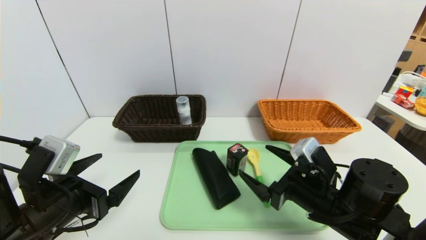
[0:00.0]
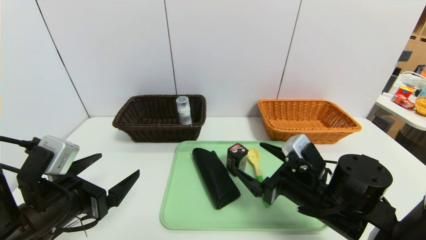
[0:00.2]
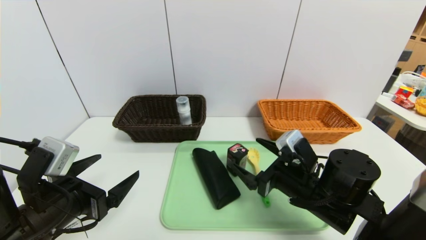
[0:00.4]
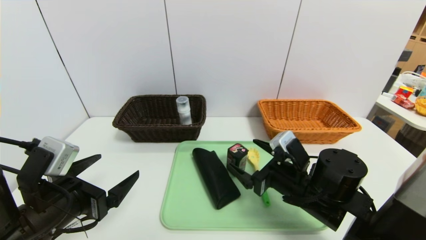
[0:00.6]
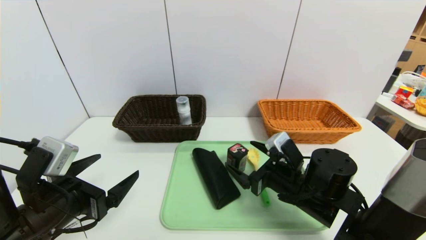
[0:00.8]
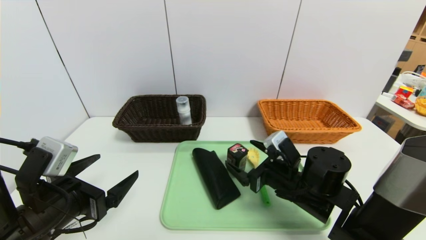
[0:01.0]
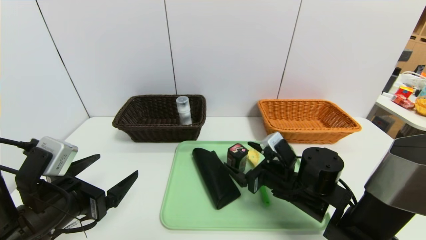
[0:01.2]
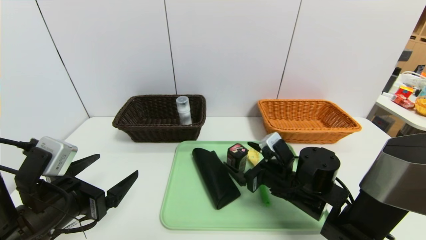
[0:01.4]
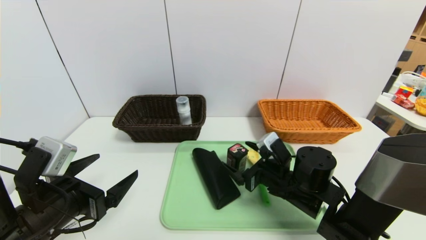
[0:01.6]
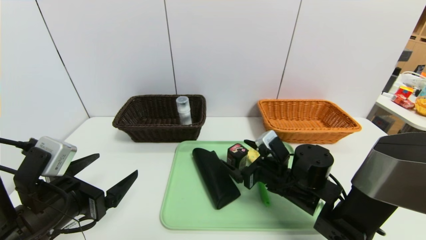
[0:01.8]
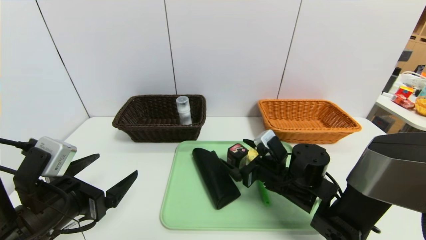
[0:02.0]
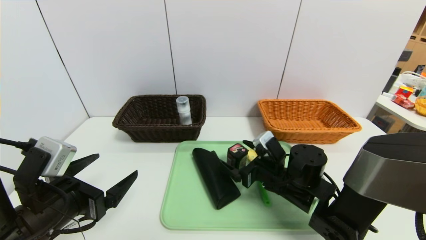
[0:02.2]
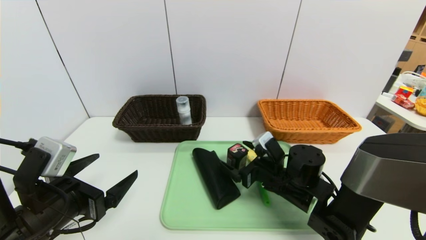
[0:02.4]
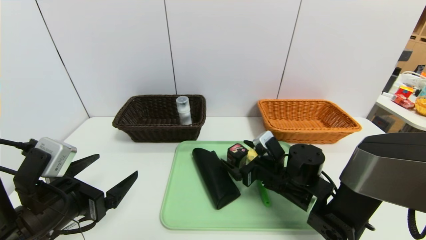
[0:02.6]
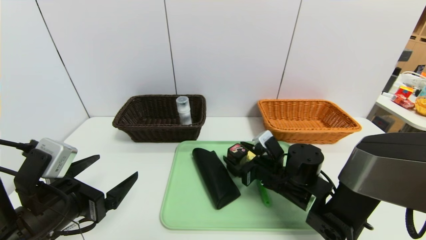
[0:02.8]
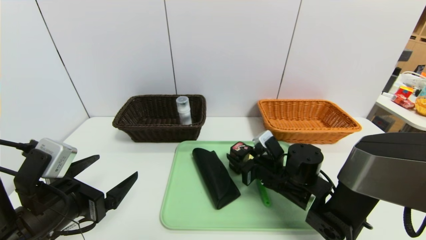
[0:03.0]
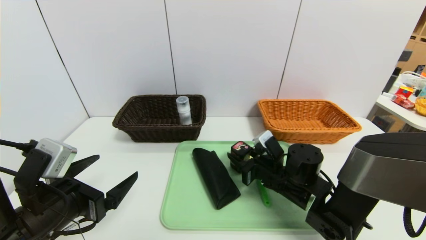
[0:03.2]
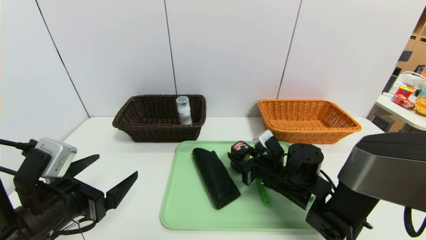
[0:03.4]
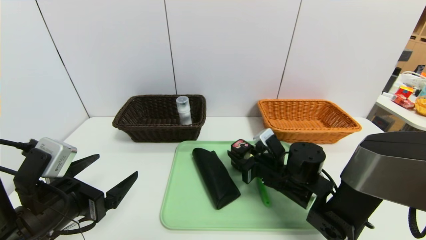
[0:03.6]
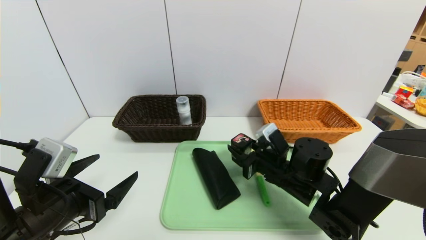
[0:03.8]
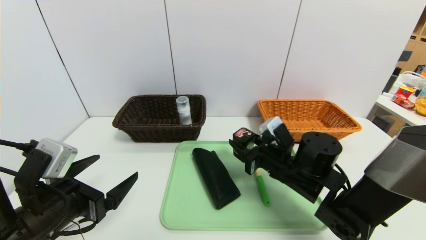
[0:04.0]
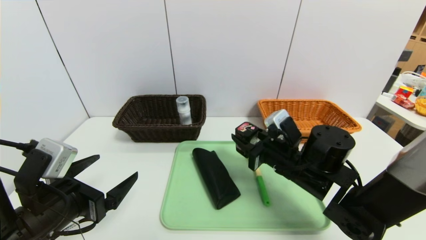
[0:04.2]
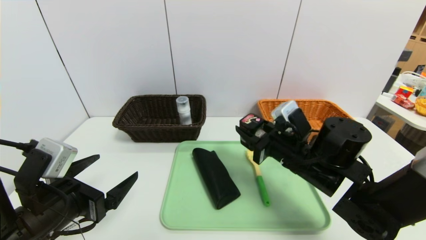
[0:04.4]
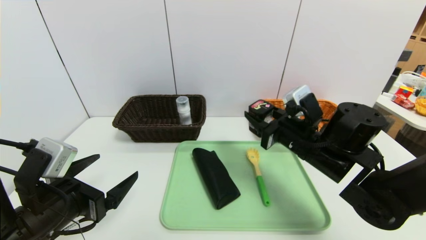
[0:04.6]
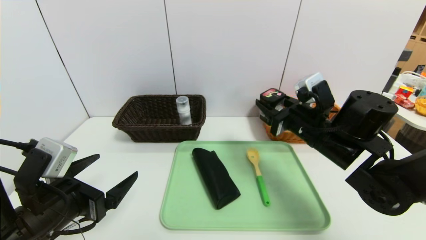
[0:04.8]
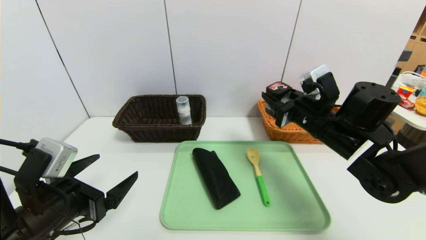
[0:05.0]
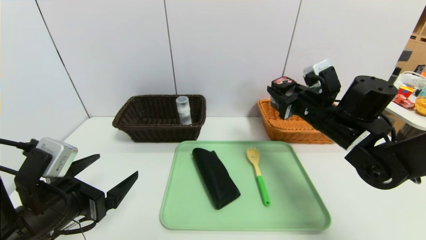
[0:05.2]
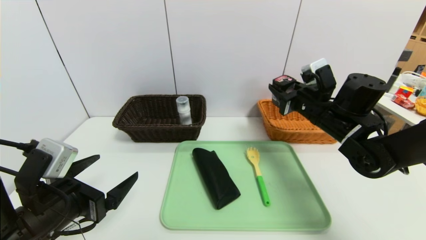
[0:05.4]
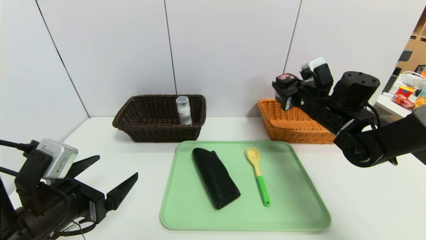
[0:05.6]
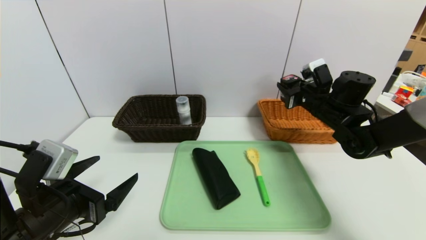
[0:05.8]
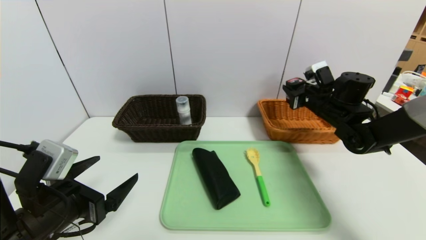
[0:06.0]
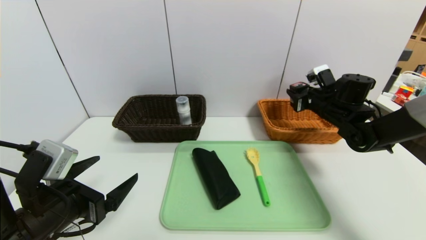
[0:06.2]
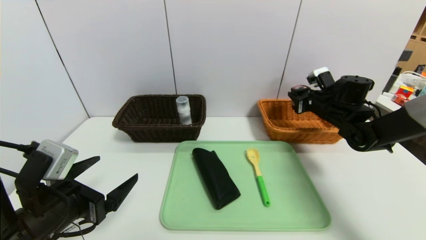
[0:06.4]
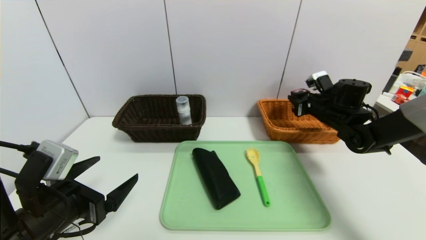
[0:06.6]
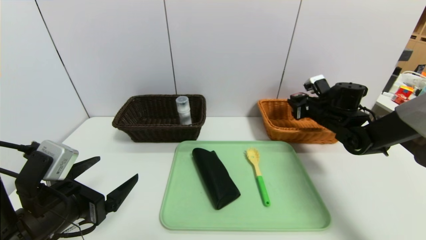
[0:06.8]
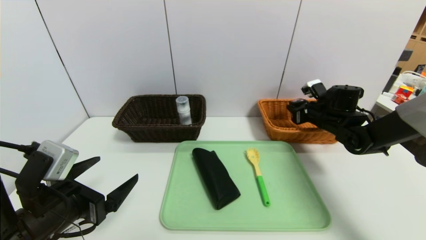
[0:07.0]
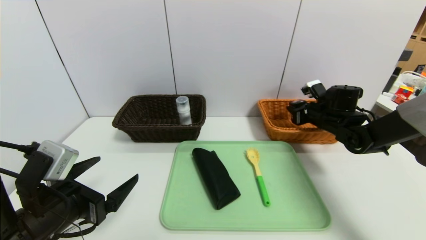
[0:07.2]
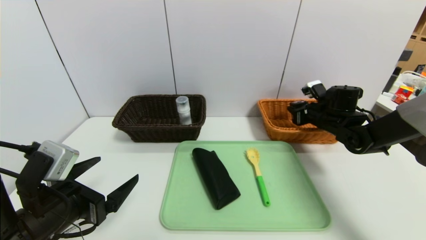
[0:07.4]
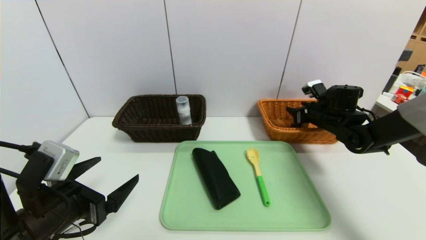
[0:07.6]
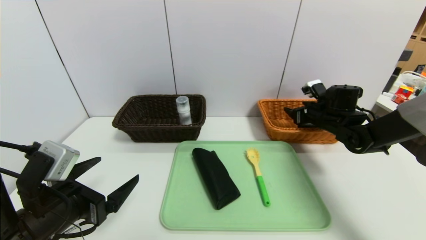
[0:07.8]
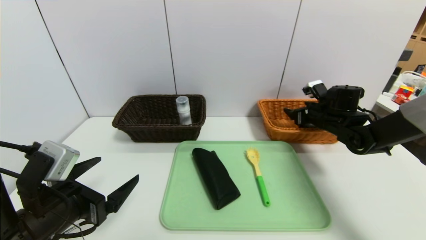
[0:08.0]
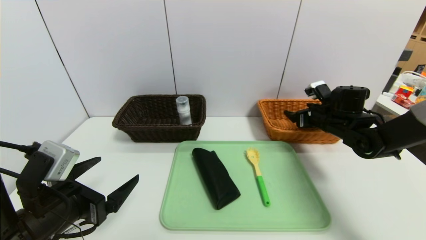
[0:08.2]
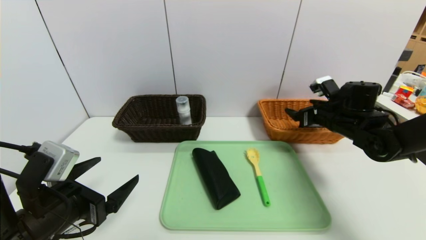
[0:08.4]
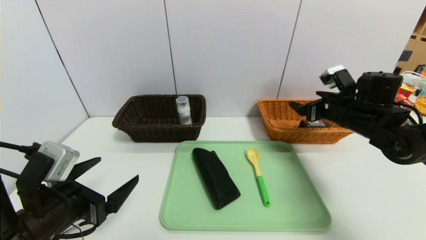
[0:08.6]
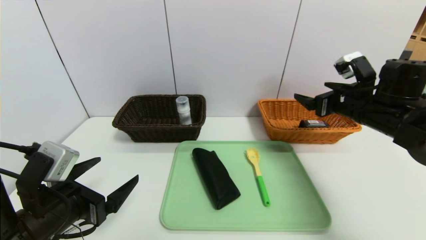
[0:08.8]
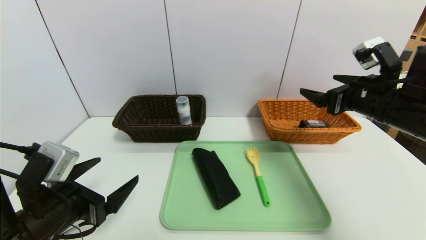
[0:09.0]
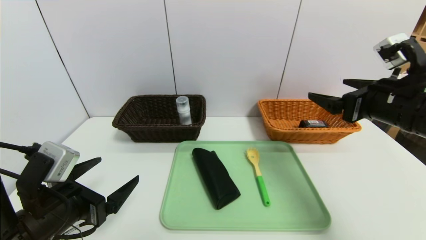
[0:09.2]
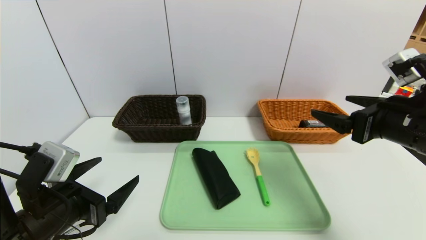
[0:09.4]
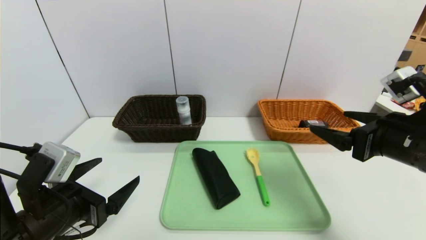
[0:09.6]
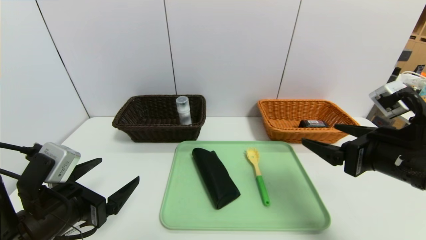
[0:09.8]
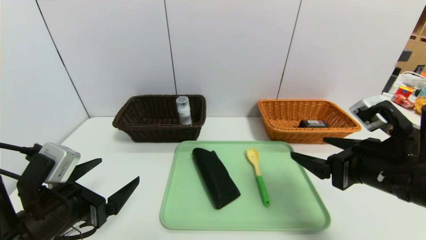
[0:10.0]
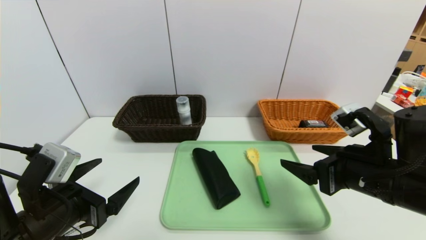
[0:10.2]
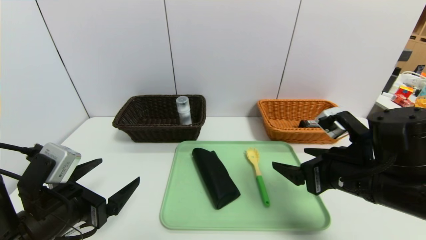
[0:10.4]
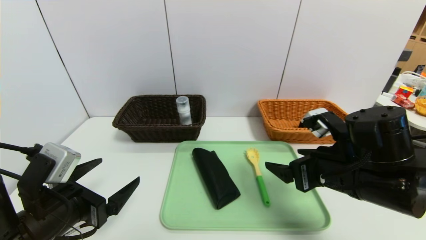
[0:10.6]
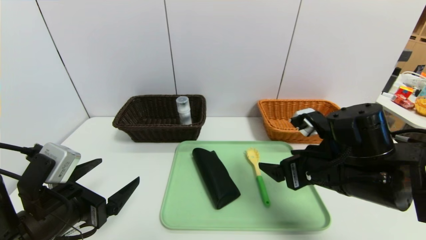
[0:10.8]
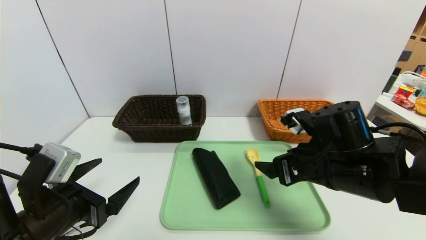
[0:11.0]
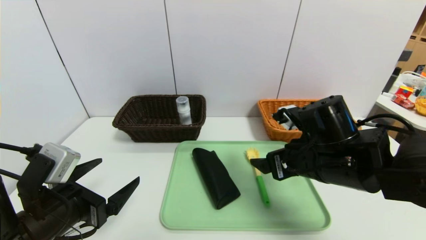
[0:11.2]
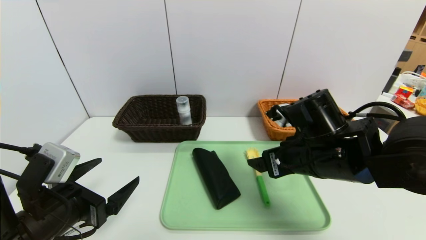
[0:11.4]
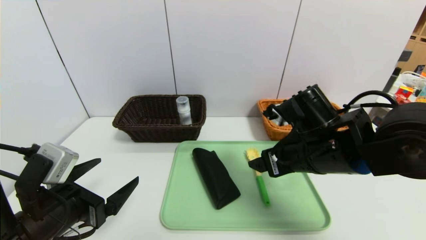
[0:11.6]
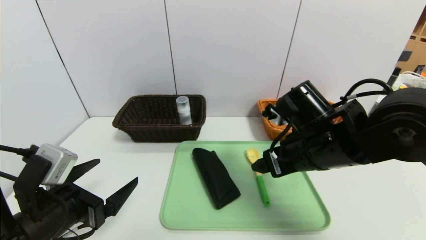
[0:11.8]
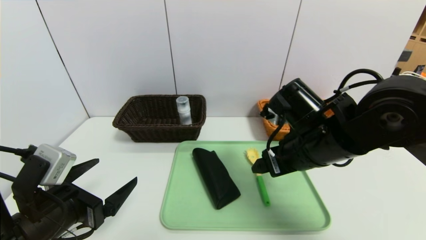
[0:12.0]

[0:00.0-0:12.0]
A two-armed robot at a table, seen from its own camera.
Task of the whole recording: place the food in the right basket with the right gripper, and place the non food items in the left basket with the left gripper.
Step, 0:00.0 to 0:08.8: Grasp the square chewing gum and put it in the right basket.
0:00.0 to 0:01.6: The right gripper travels forward by some 5 cm.
0:01.6 to 0:03.0: The right gripper closes.
0:03.0 to 0:04.4: The right gripper moves upward, approximately 10 cm.
0:04.4 to 0:06.0: The right gripper moves forward and to the right, about 20 cm.
0:06.0 to 0:07.6: The grippers make only small movements.
0:07.6 to 0:09.0: The right gripper moves backward and upward, about 20 cm, and opens its fingers.
0:09.0 to 0:10.4: The right gripper is displaced backward, to the left and downward by roughly 10 cm.
0:10.4 to 0:12.0: The right gripper shifts some 10 cm to the left and forward.

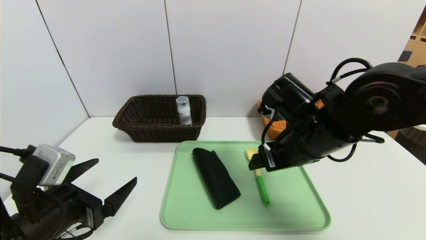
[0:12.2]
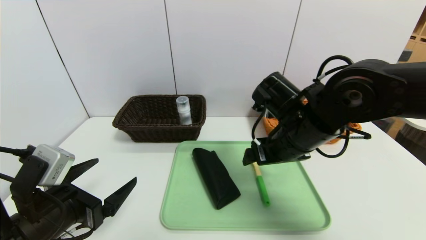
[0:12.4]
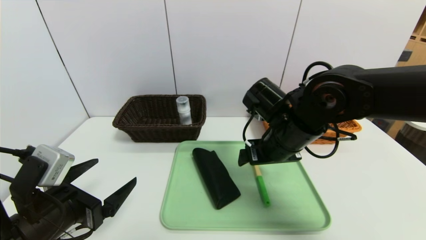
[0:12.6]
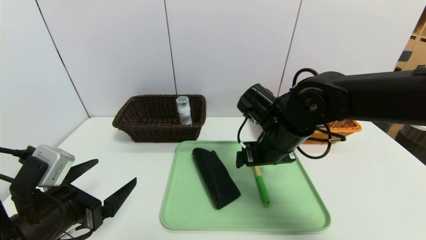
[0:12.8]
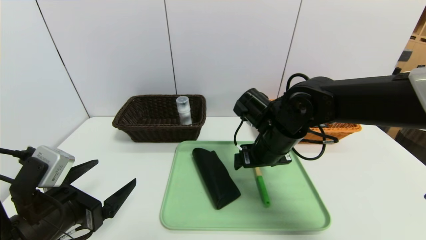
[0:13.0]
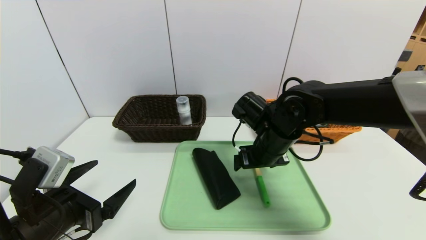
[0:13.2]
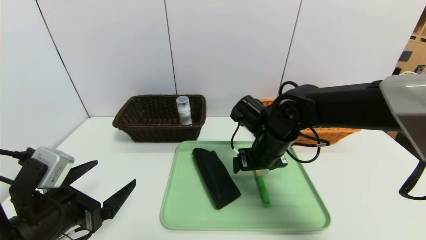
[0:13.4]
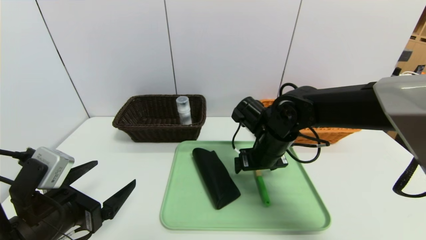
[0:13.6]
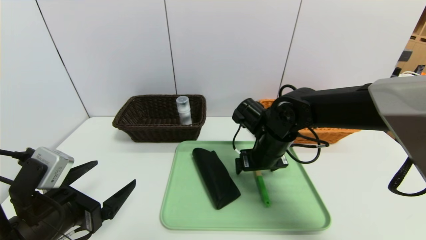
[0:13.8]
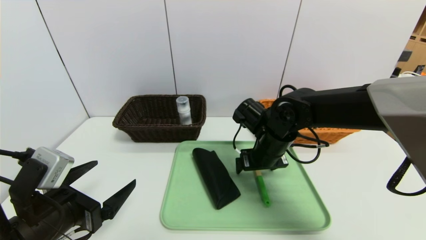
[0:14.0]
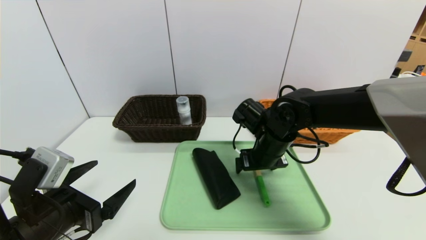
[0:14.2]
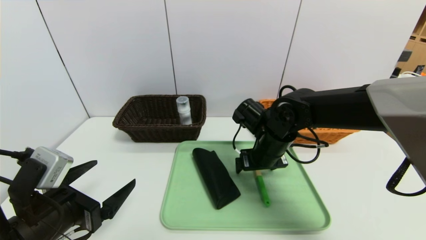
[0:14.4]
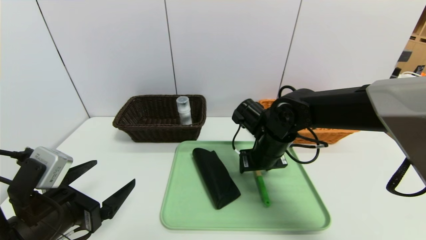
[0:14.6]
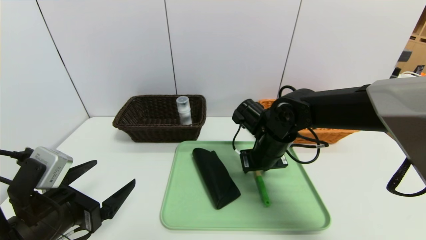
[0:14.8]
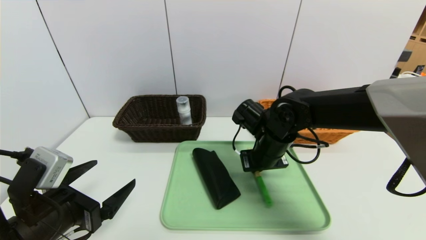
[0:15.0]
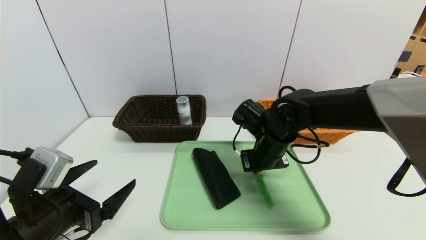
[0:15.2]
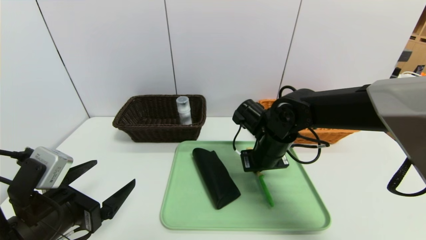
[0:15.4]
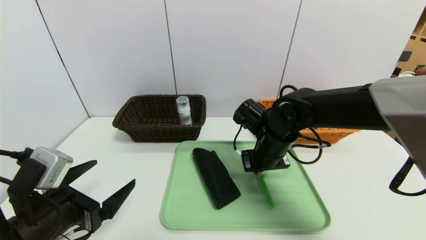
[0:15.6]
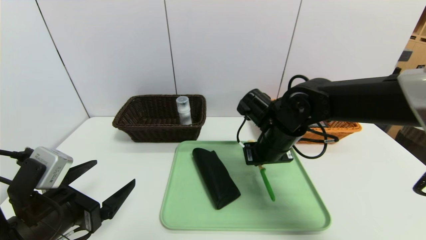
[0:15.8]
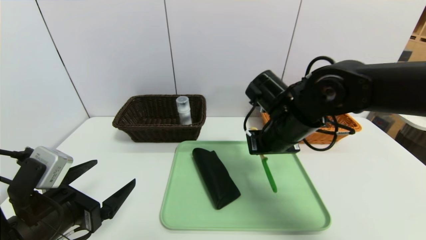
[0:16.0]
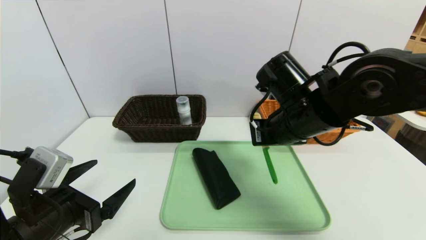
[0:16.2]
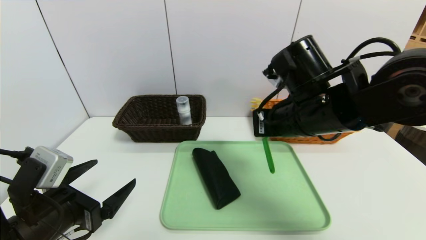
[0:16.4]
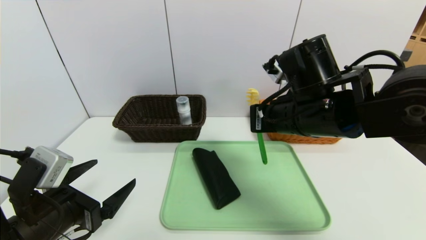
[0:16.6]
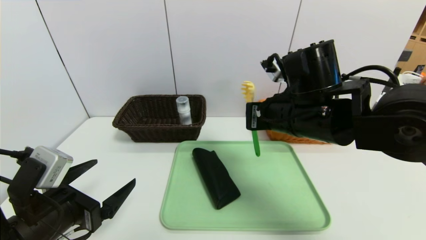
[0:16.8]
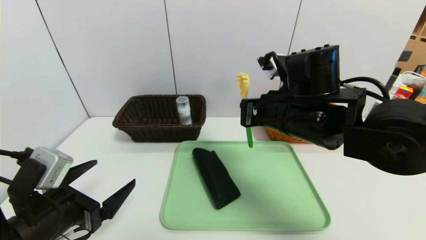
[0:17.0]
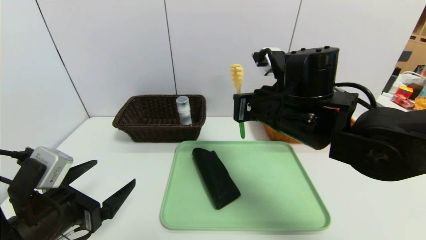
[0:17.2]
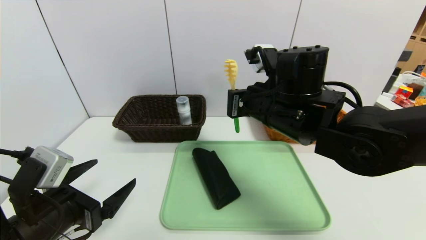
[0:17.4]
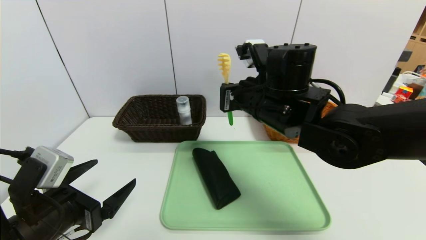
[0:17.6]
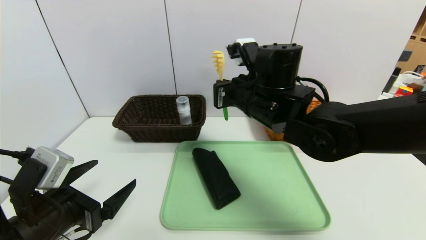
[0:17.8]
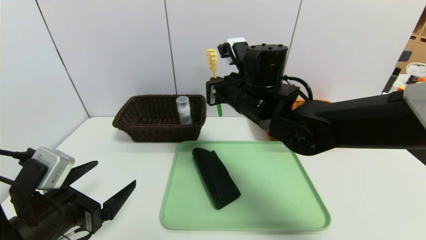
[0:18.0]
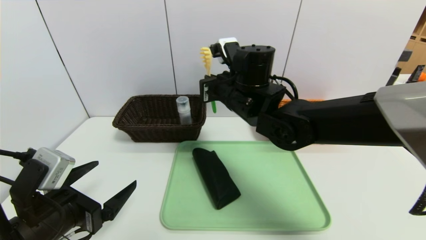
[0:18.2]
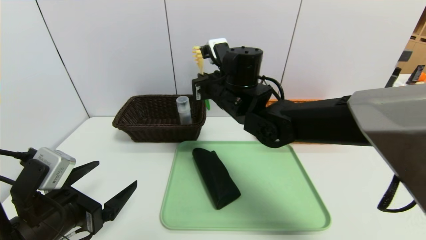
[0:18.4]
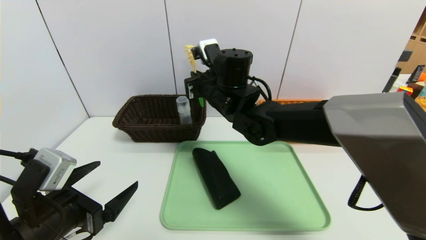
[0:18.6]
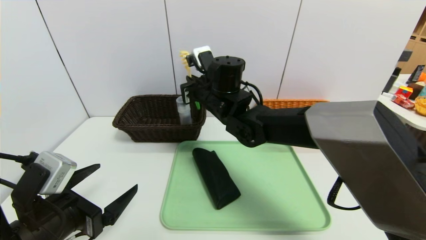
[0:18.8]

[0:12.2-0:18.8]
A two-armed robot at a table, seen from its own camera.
Task of the whole recording: place the food in the right basket with the right gripper, and place the non food items in the left basket with the left gripper.
0:12.2 to 0:13.8: The right gripper heads downward and forward, covering about 10 cm.
0:13.8 to 0:15.4: The right gripper closes.
0:15.4 to 0:17.2: The right gripper goes about 10 cm upward.
0:17.2 to 0:18.8: The right gripper goes some 15 cm to the left and forward.
